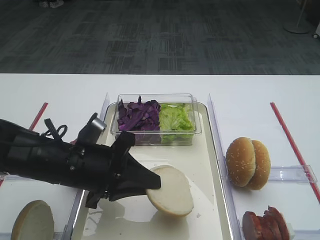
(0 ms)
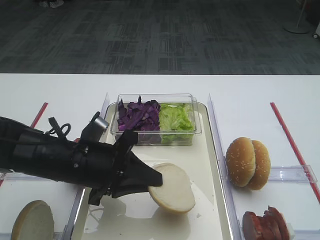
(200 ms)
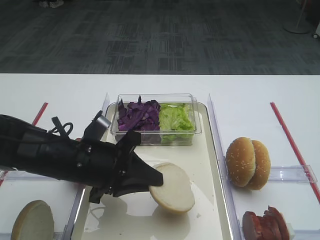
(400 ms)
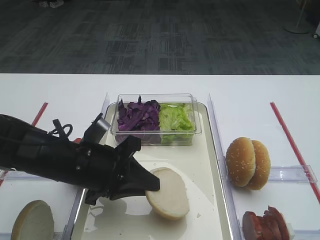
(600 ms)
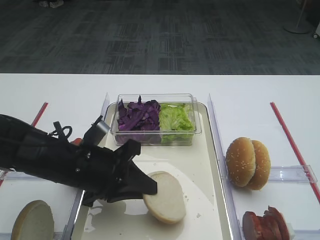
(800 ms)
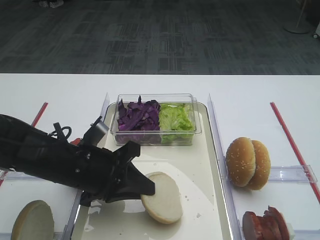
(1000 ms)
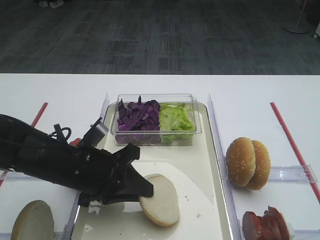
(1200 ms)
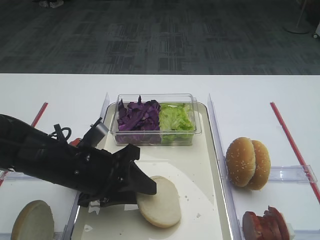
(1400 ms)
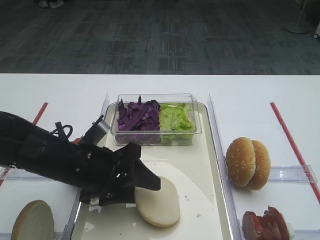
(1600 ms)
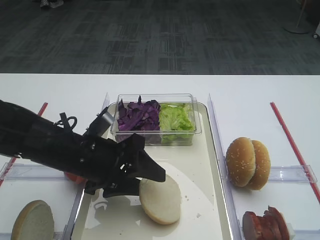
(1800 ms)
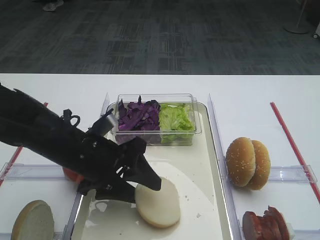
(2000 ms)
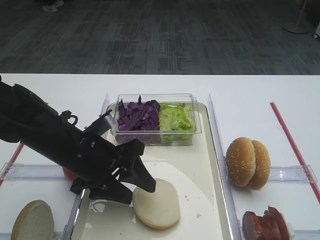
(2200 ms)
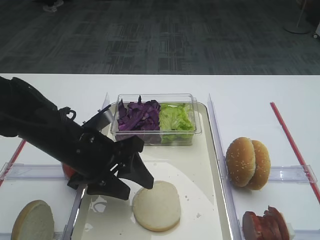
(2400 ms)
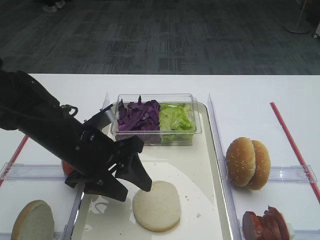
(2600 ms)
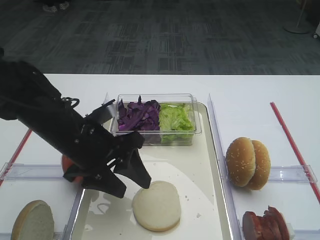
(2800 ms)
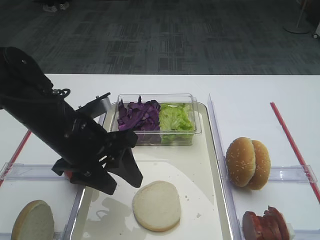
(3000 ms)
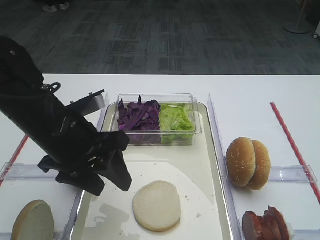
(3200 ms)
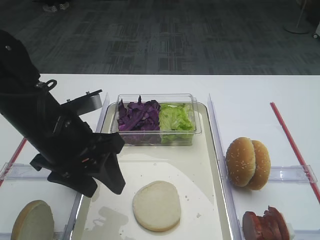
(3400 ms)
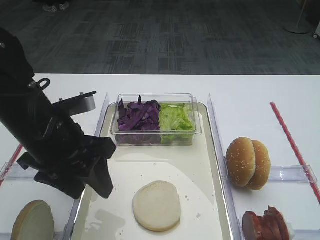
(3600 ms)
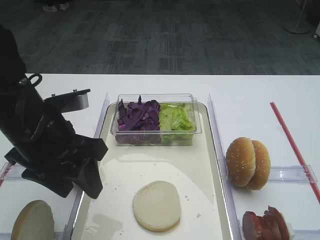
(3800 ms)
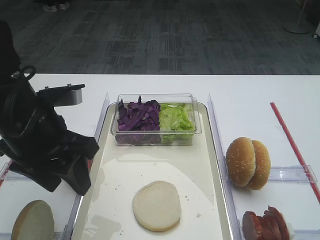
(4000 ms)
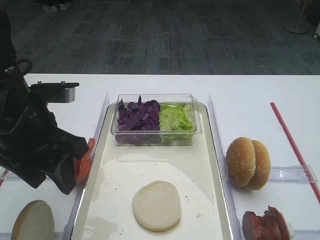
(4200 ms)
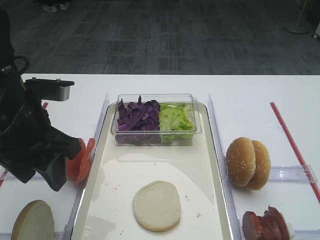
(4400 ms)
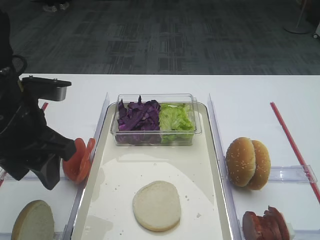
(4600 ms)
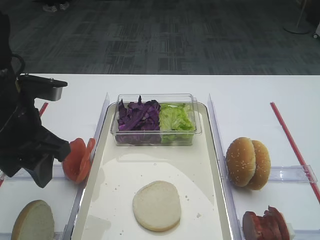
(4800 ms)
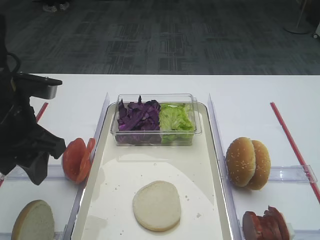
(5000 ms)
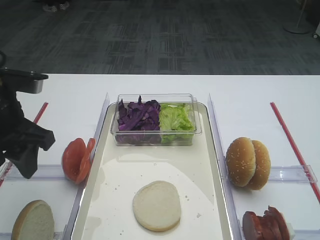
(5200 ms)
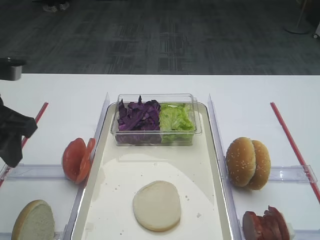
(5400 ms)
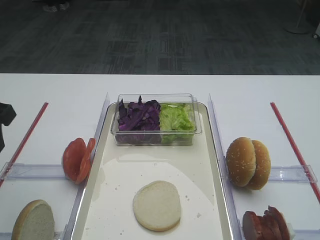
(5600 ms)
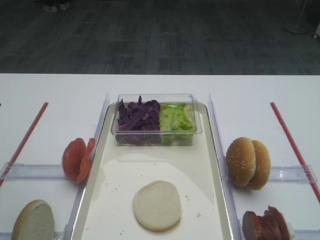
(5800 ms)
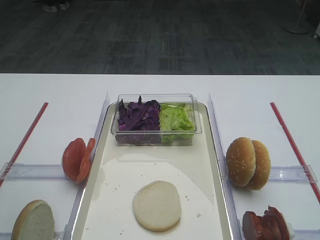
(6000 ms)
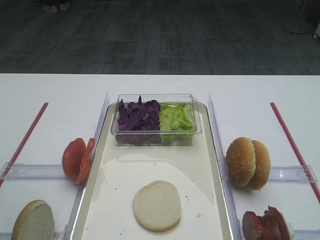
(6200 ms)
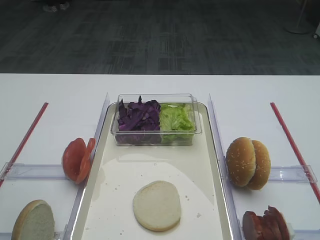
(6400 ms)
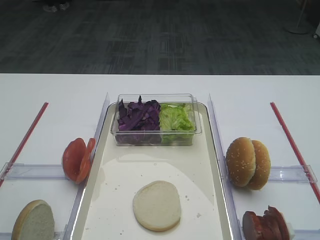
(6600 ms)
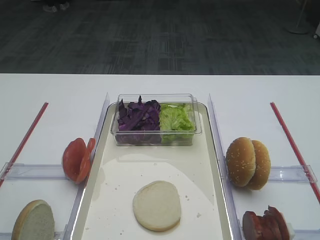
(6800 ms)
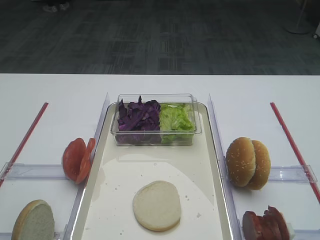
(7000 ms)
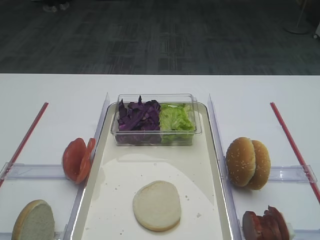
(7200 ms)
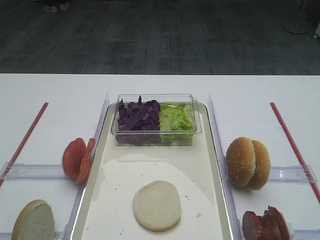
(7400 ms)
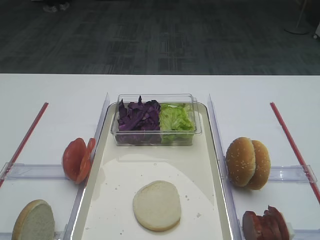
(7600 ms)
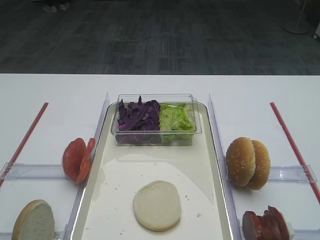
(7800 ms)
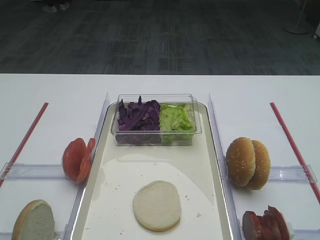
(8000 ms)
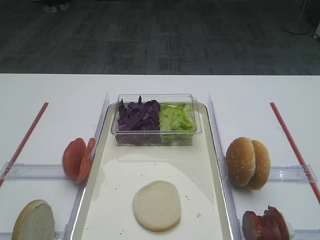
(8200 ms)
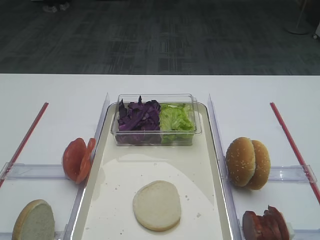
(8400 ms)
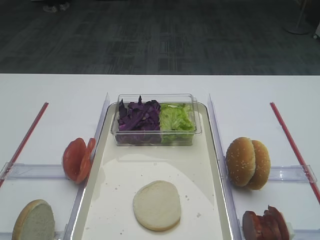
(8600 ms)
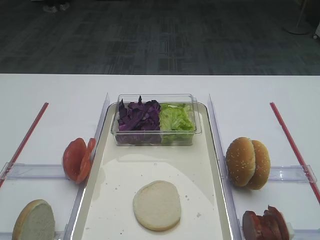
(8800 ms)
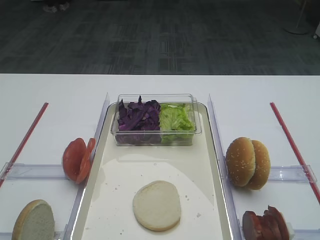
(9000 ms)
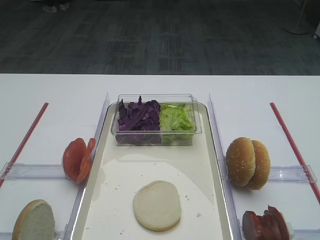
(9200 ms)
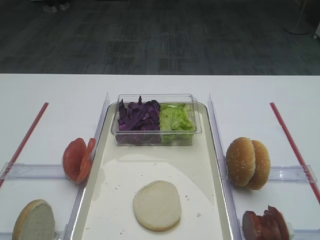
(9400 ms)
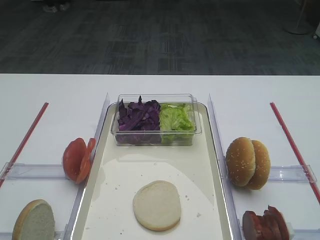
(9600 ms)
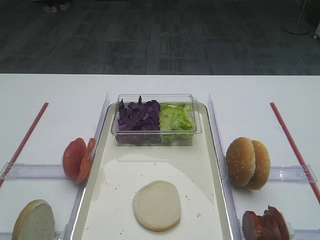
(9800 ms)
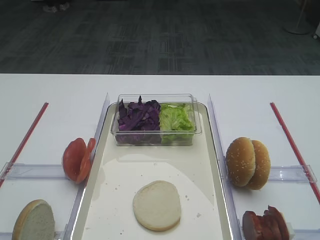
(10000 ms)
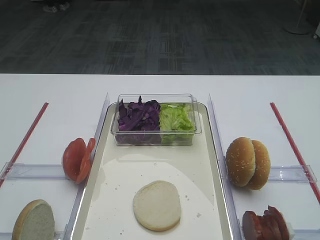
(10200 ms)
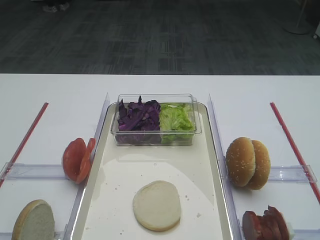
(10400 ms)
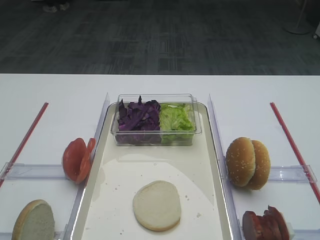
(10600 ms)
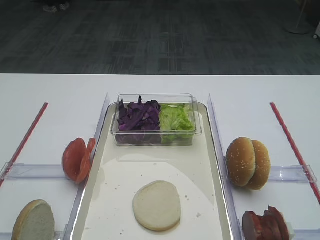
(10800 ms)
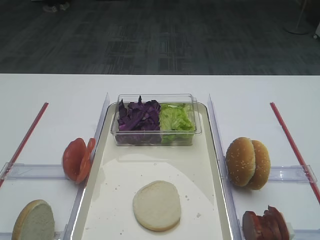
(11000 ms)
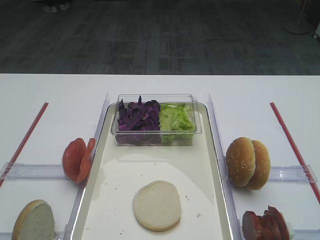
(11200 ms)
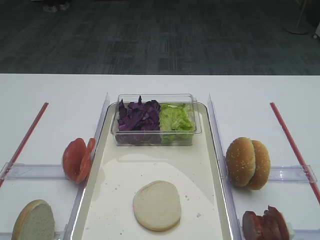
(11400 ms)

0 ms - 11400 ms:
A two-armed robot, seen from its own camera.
Step, 0 ms - 3800 ms: Place the bread slice on the tray with the left gripper.
0 ms - 1400 ms: The left gripper opens up.
1400 ms - 2800 ms: The left gripper opens.
2800 ms - 4200 ms: The left gripper is displaced upward and to the left by approximately 10 cm.
4200 ms - 5600 ms: The left gripper heads to the left, covering about 10 cm.
5600 ms - 7200 ms: The left gripper travels backward by about 15 cm.
10000 ms - 11400 ms: Both grippers stay put.
